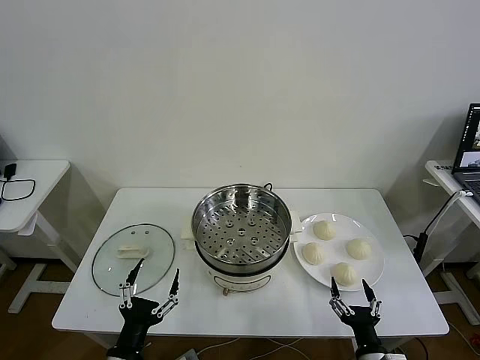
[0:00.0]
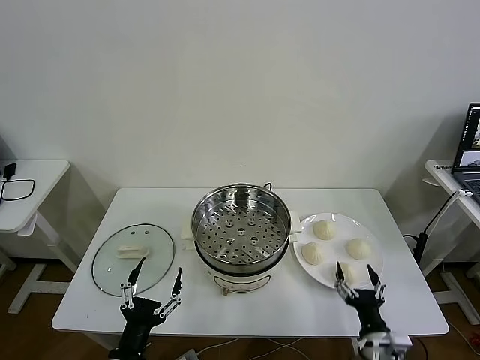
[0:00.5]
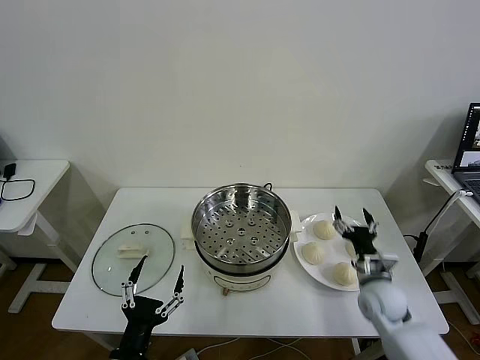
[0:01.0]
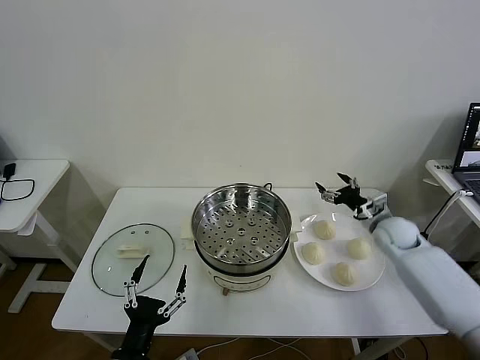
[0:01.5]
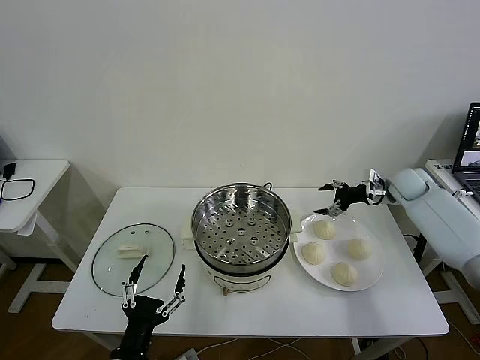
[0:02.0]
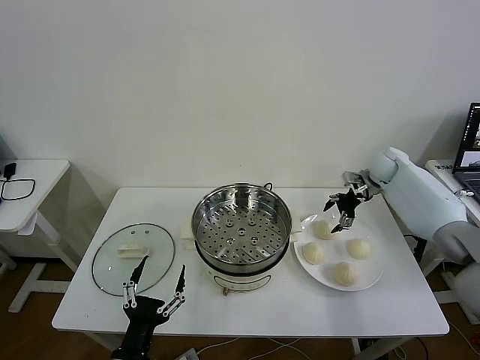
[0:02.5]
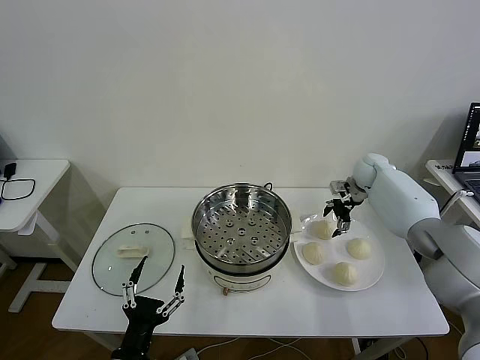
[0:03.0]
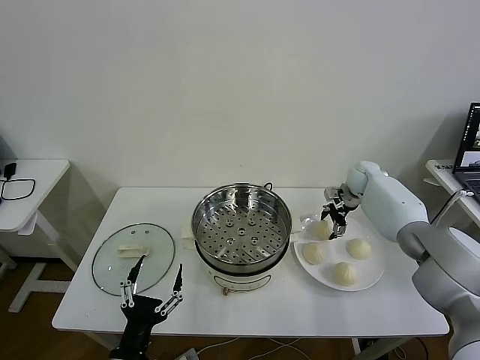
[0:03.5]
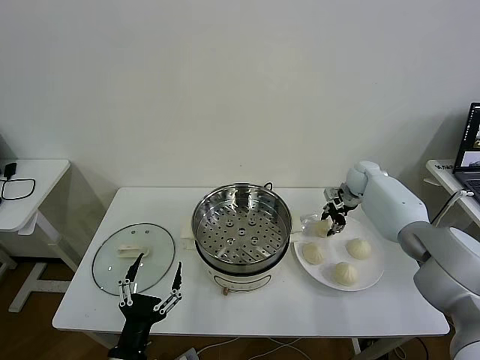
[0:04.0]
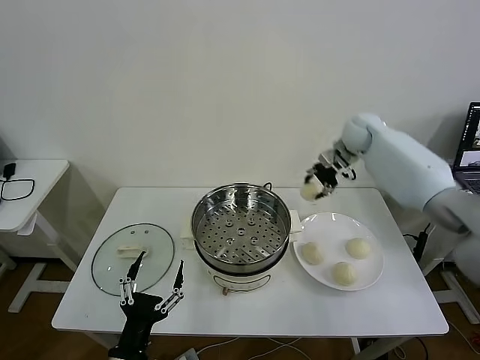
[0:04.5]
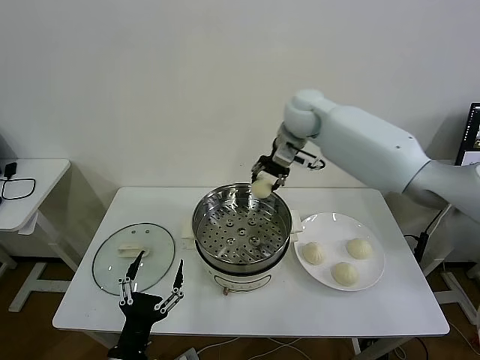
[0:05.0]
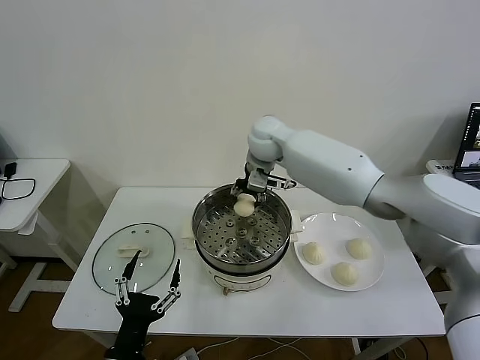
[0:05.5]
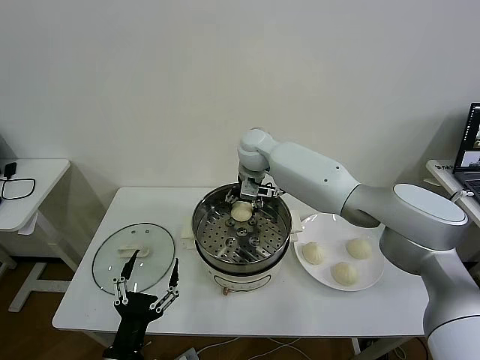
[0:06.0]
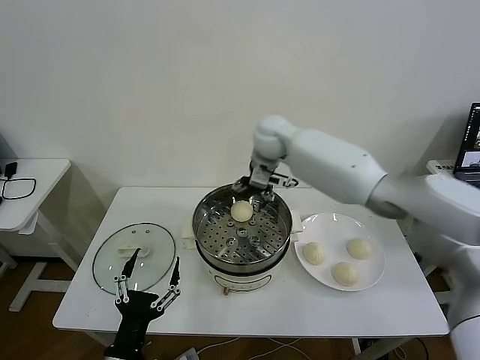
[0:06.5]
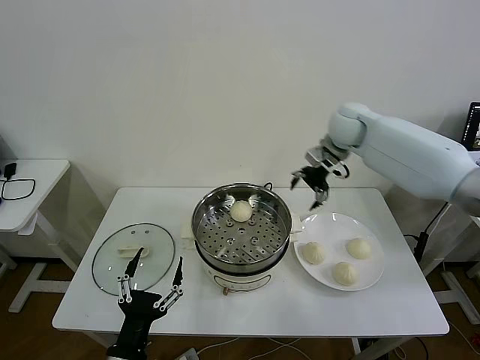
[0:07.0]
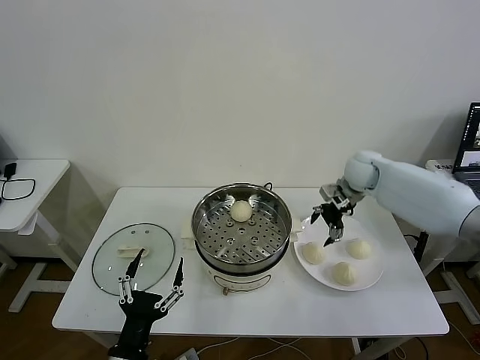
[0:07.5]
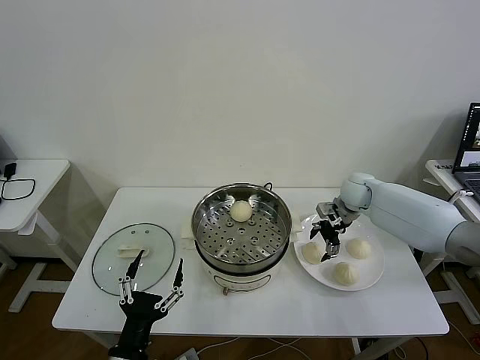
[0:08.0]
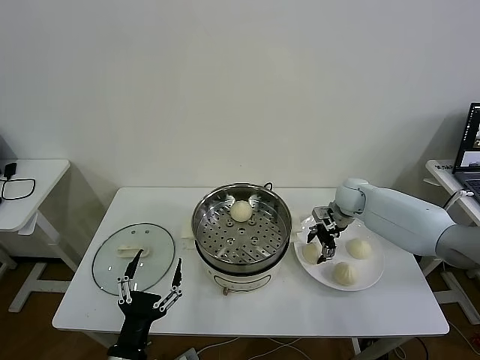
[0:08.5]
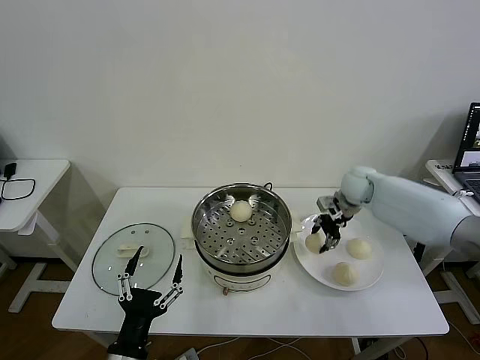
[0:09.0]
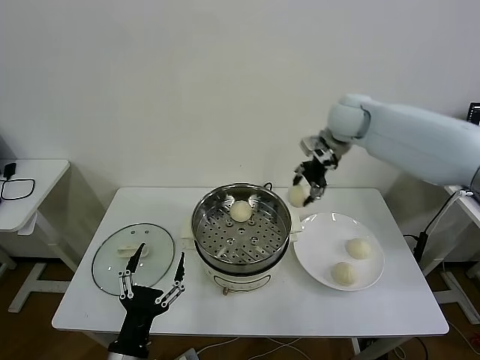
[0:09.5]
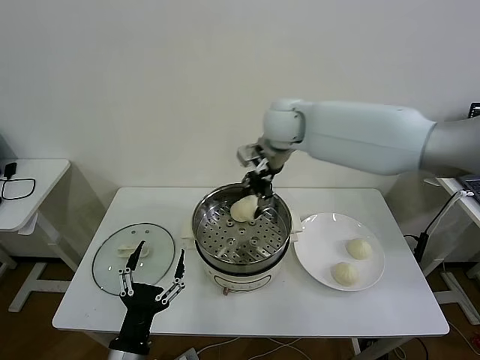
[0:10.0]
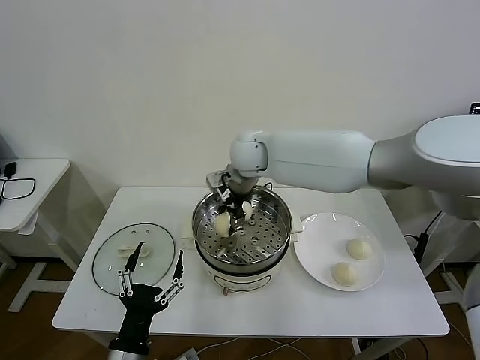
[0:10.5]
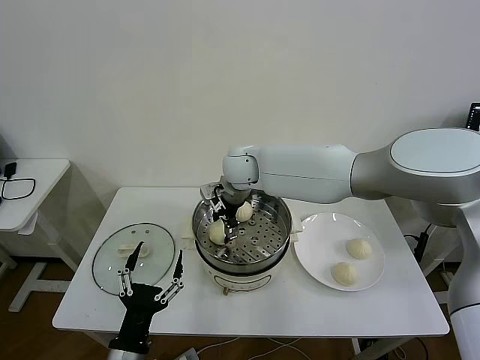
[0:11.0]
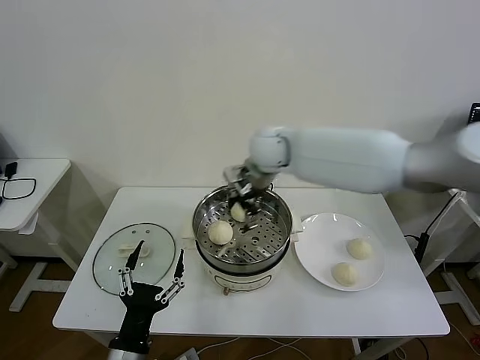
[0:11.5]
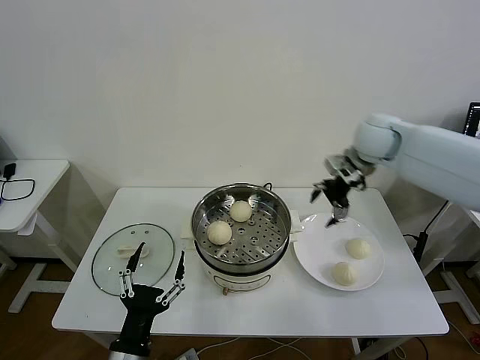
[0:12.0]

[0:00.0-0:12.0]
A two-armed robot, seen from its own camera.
Task of the whole recording: take steamed baozi put them in steamer then cover it.
Step, 0:00.0 to 0:03.5: Grasp the baozi in the plate with right gripper.
Step, 0:04.0 to 0:06.0: Place the baozi on the steamer with right gripper.
Step, 0:06.5 to 0:08.5: Grasp the baozi in the plate with right gripper.
Step, 0:09.0 to 0:11.0: Place the baozi on the steamer with right gripper.
0:02.0 to 0:04.0: The right gripper goes some 10 cm to the left and forward, and closes up.
0:04.0 to 0:06.0: The right gripper moves to the left, roughly 30 cm, and opens.
0:06.0 to 0:08.0: The right gripper is displaced to the right and downward by some 30 cm.
0:08.0 to 0:10.0: The right gripper shifts roughly 30 cm to the left and upward, and closes.
0:10.0 to 0:12.0: The right gripper moves to the right, some 25 cm, and opens.

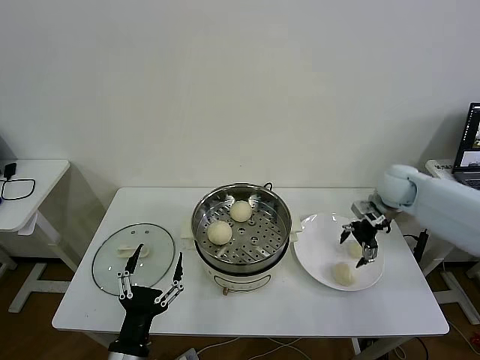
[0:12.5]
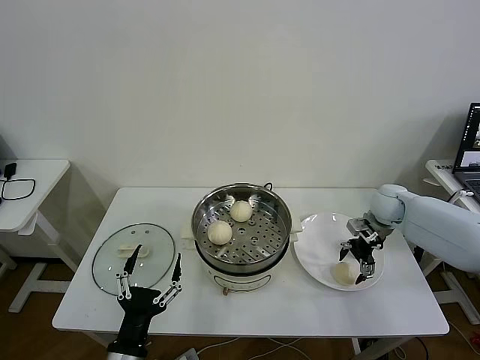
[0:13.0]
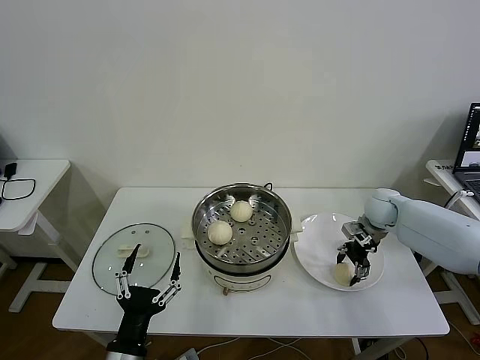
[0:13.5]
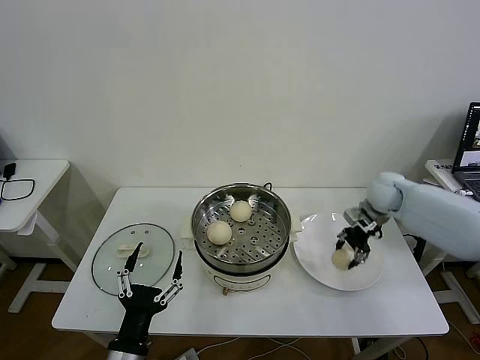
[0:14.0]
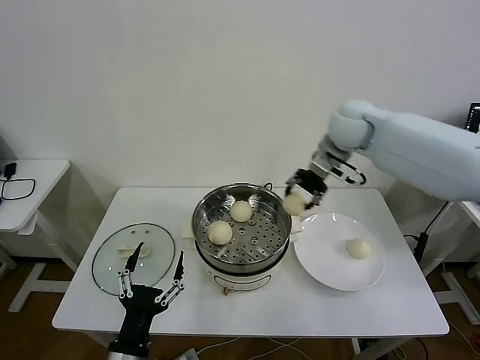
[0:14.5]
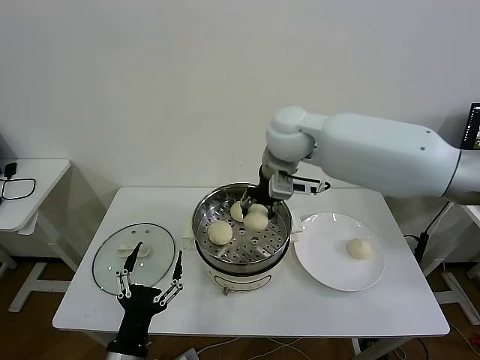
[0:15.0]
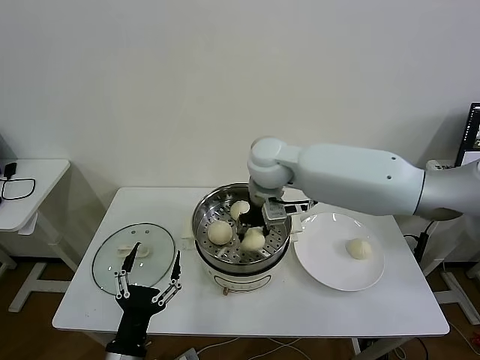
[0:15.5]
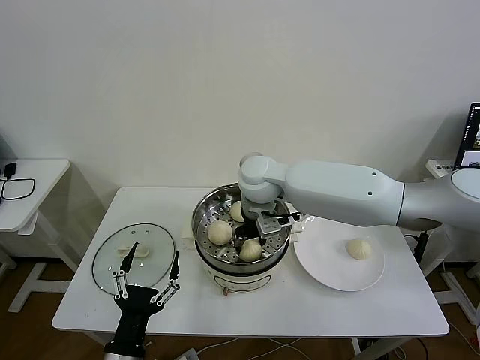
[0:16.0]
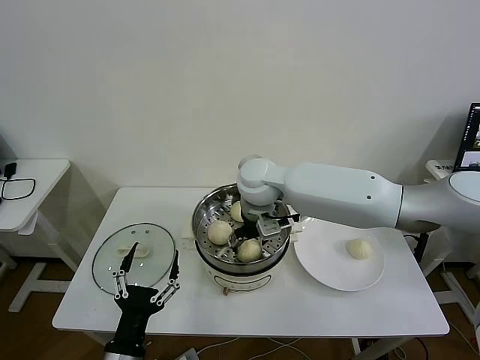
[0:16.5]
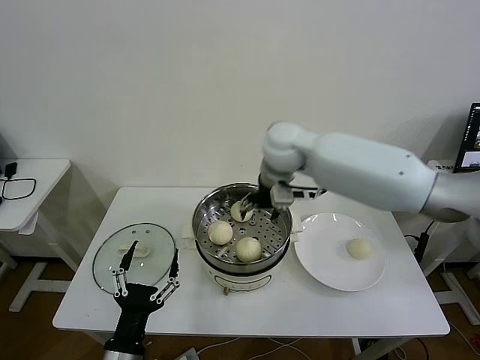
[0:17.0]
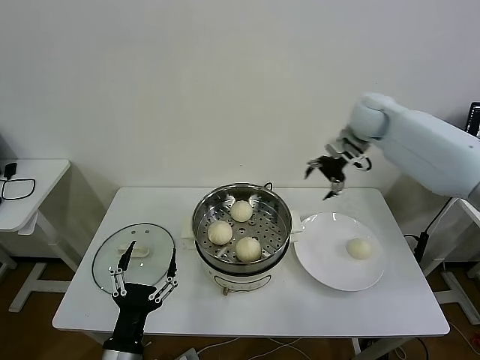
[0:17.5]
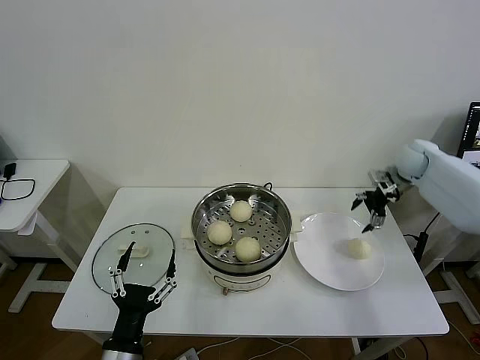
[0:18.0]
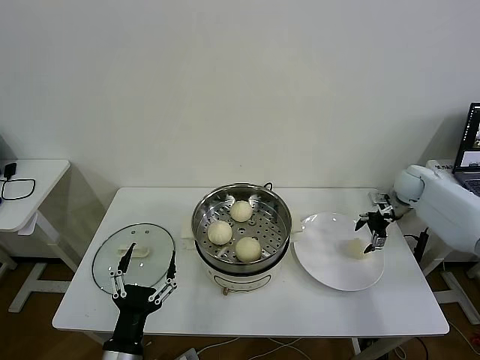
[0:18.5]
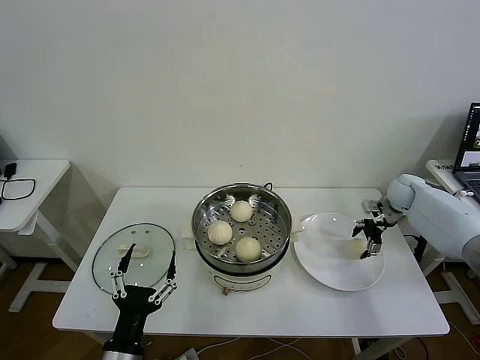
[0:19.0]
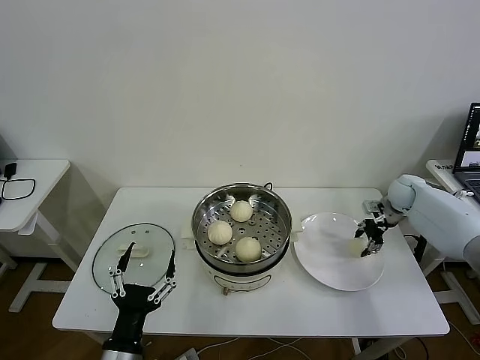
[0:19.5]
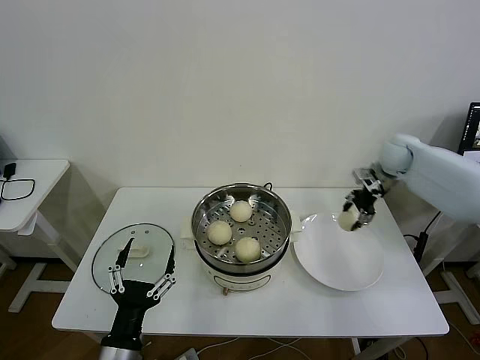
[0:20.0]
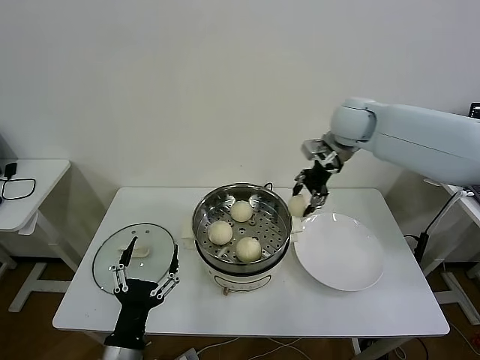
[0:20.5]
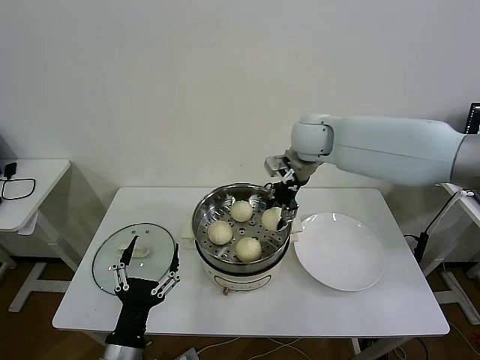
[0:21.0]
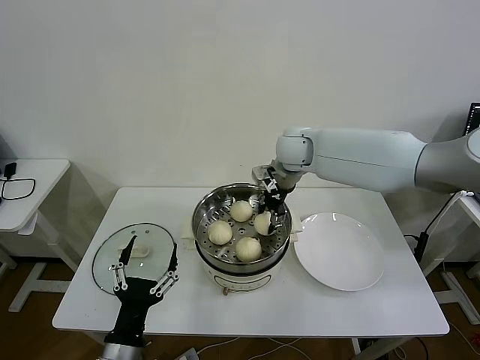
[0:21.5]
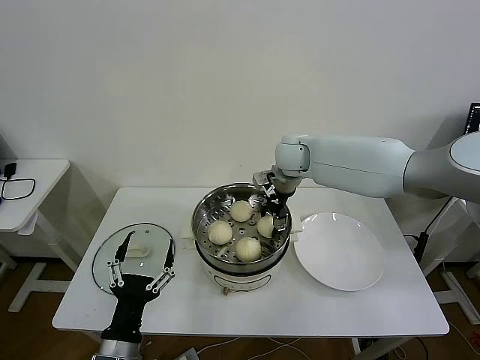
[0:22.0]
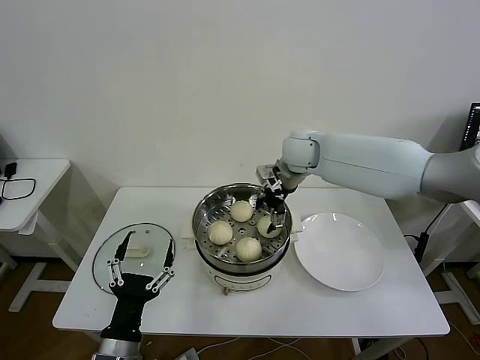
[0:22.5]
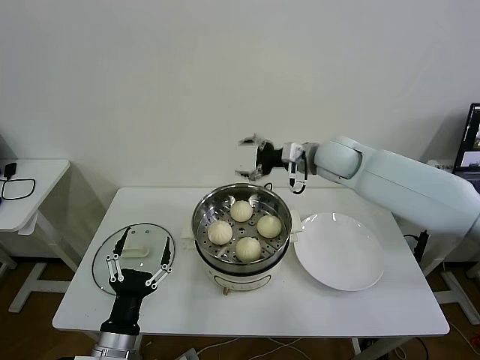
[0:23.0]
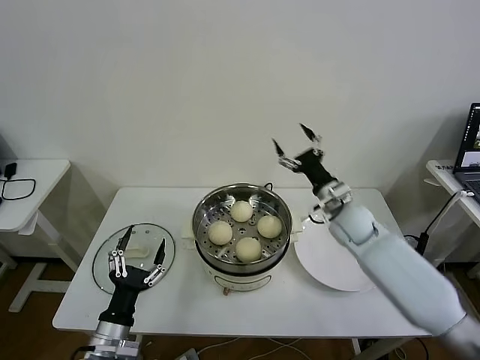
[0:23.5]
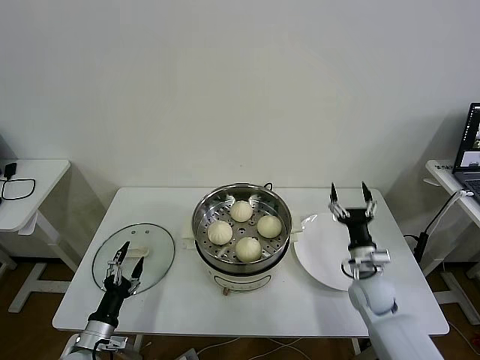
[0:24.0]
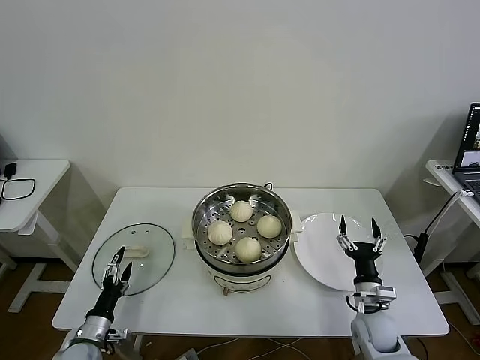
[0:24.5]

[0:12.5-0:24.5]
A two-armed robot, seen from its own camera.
Task of the whole recording: take steamed baozi put them in steamer then cover it.
Step, 0:14.0 to 0:17.0: Place the baozi on the steamer with right gripper.
Step, 0:17.5 to 0:19.5: Grasp the baozi in the plate with right gripper.
Step, 0:20.0 to 0:22.5: Place the baozi on the steamer with right gripper.
0:12.5 to 0:14.5: The right gripper travels to the left and upward by approximately 25 cm, and closes up.
0:14.5 to 0:16.5: The right gripper is displaced to the left, downward and backward by approximately 20 cm, and opens.
0:16.5 to 0:18.5: The right gripper shifts some 40 cm to the right.
0:18.5 to 0:20.5: The right gripper shifts roughly 30 cm to the left and upward, and closes up.
0:20.5 to 0:22.5: The right gripper goes some 10 cm to the left and downward, and opens.
0:22.5 to 0:24.5: The left gripper is displaced downward, to the left and forward by roughly 25 cm. The right gripper moves downward, backward and to the right, roughly 50 cm.

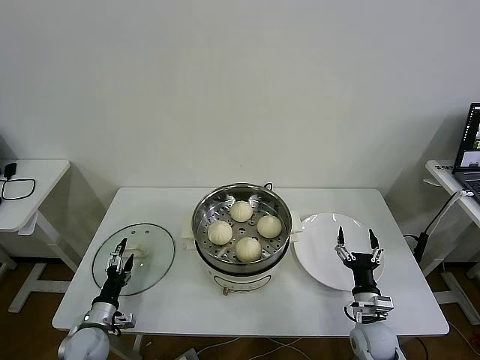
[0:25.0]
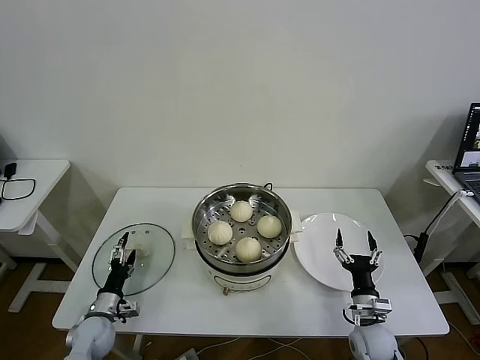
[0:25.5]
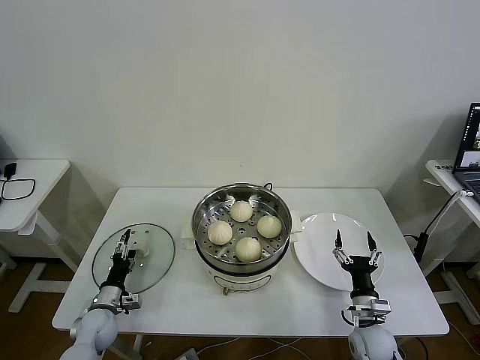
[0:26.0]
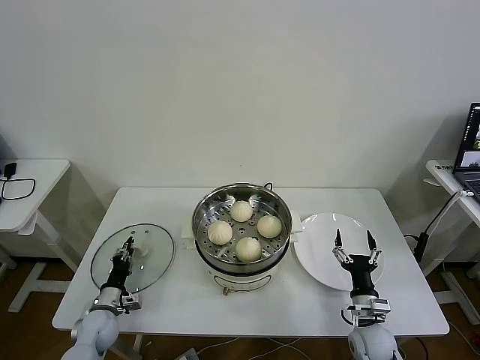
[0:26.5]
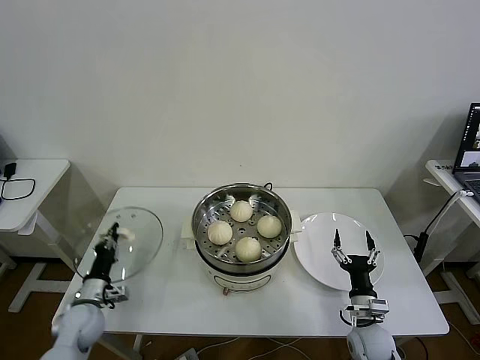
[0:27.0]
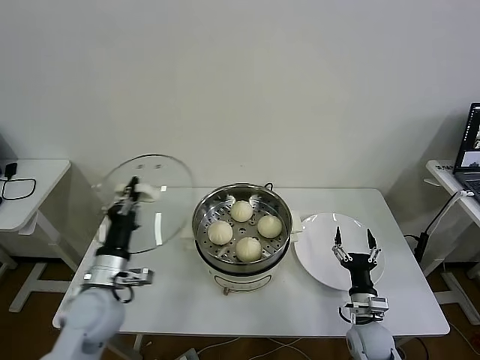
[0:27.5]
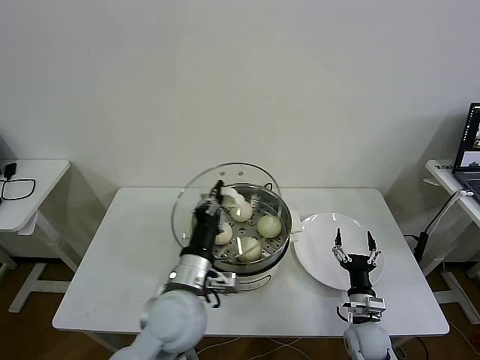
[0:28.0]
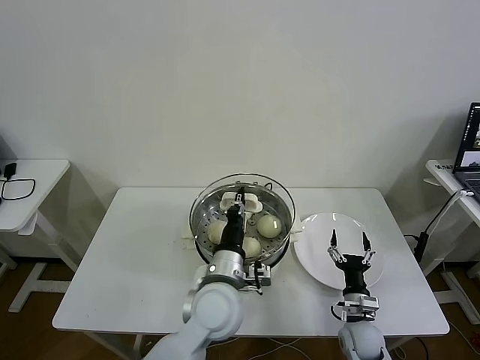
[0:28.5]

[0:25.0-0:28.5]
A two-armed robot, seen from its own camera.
Task of the whole recording: take steamed baozi put them in steamer then cover it.
0:25.0 to 0:27.0: The left gripper ends up some 5 cm from where it was, and closes up.
0:27.0 to 0:28.5: The left gripper moves to the right and upward, about 40 cm.
